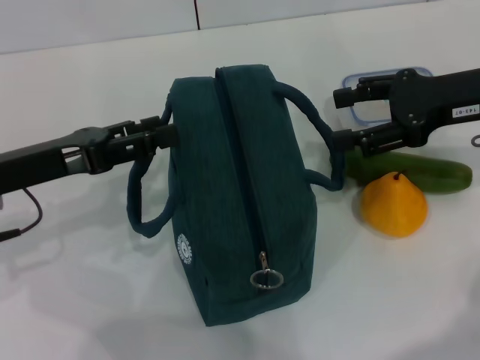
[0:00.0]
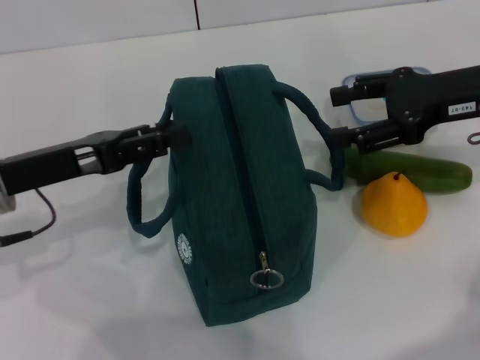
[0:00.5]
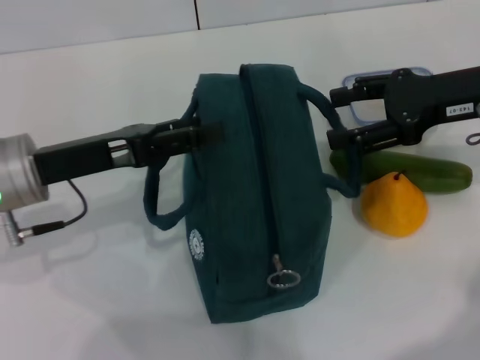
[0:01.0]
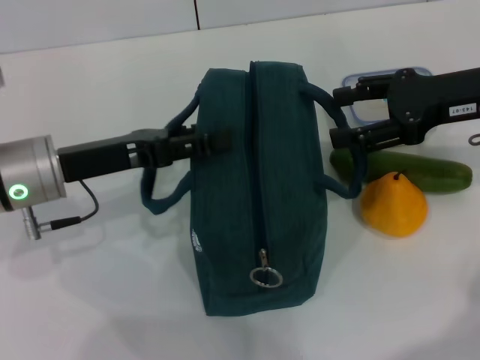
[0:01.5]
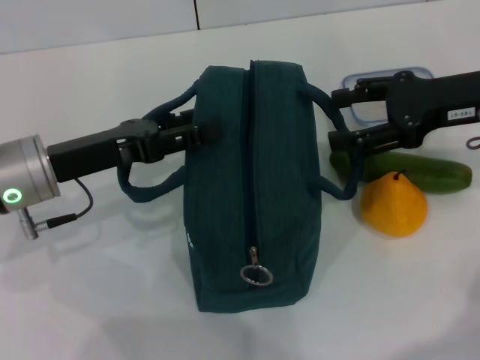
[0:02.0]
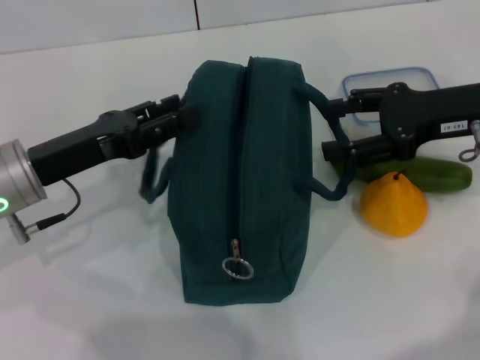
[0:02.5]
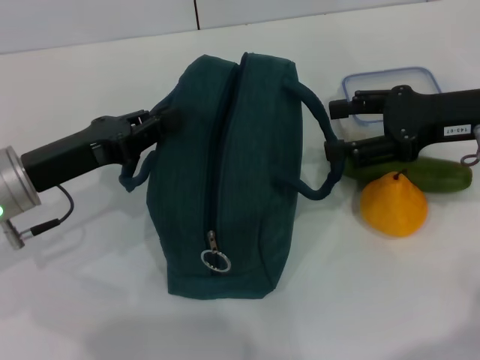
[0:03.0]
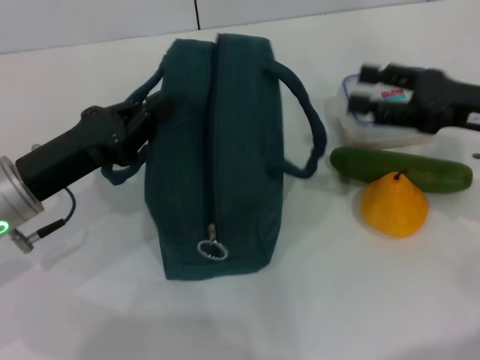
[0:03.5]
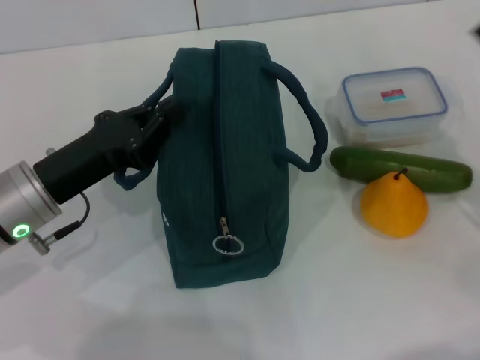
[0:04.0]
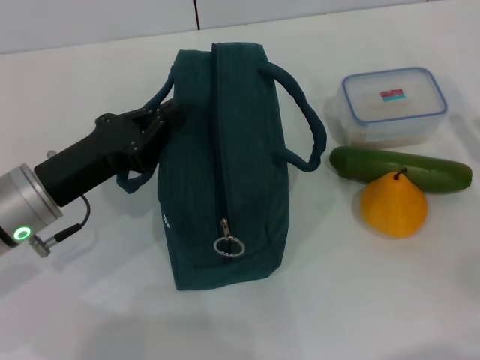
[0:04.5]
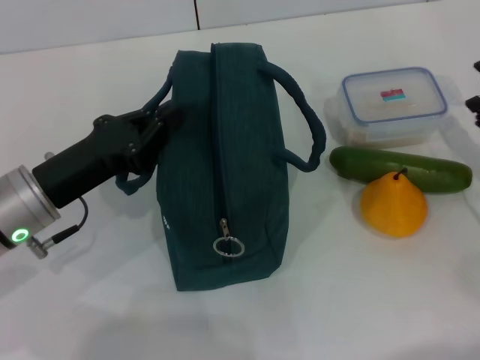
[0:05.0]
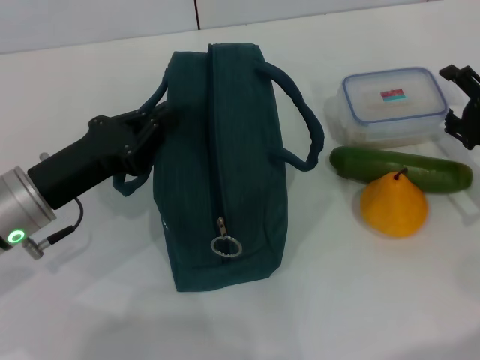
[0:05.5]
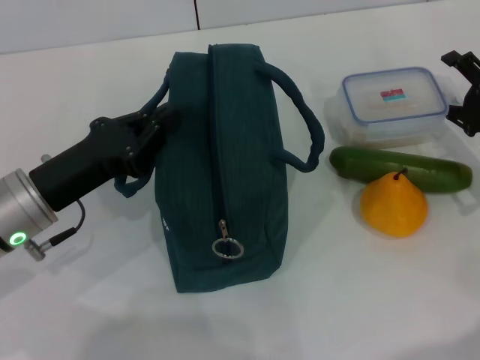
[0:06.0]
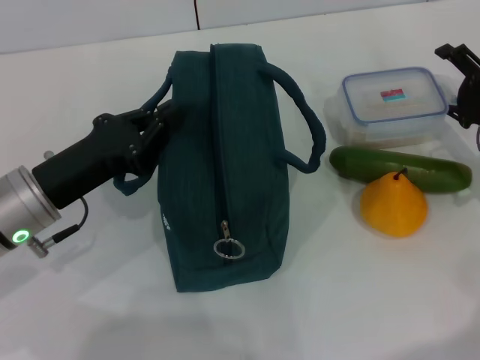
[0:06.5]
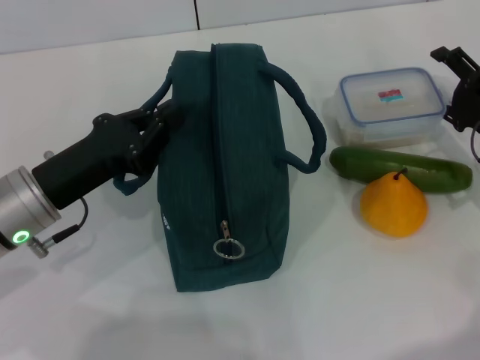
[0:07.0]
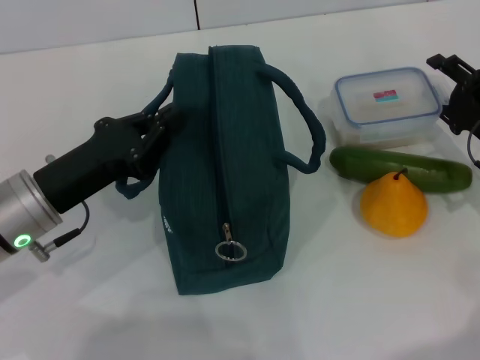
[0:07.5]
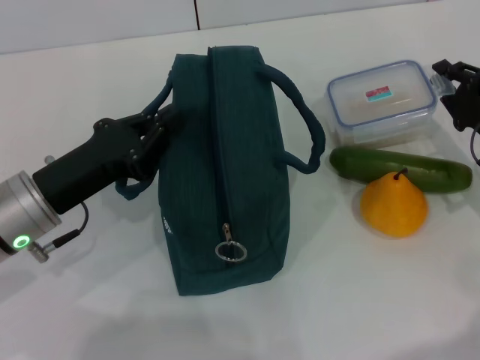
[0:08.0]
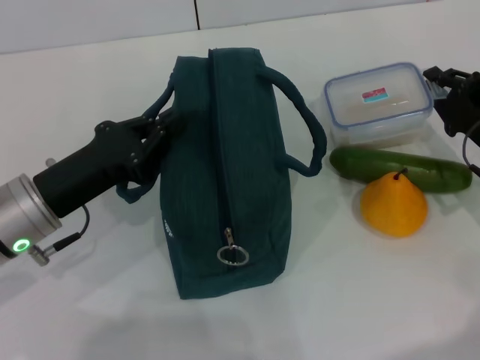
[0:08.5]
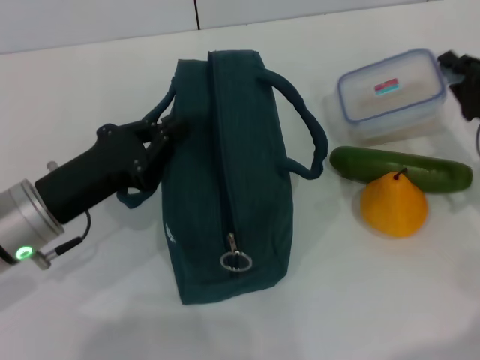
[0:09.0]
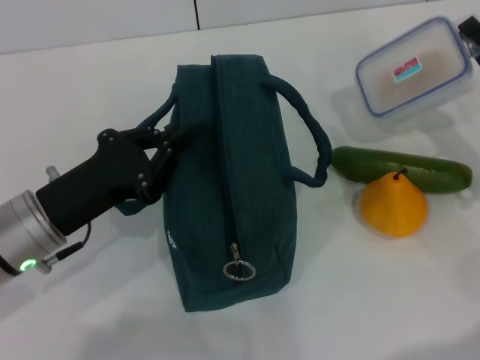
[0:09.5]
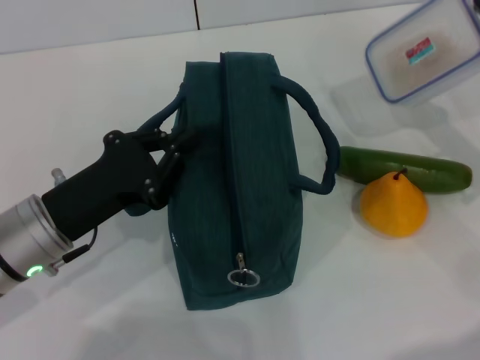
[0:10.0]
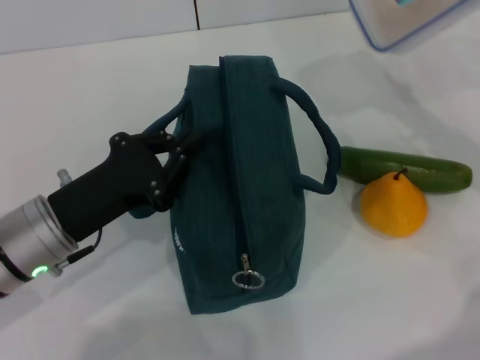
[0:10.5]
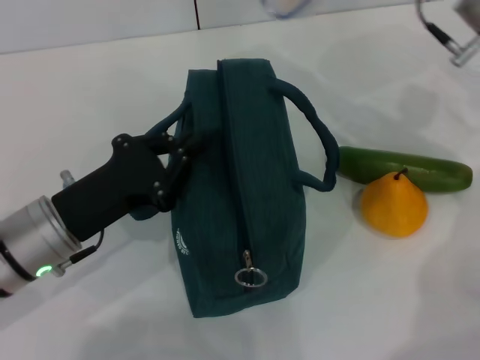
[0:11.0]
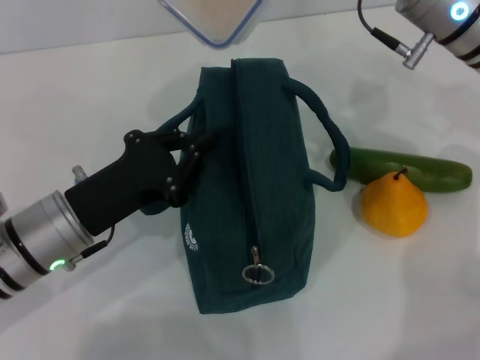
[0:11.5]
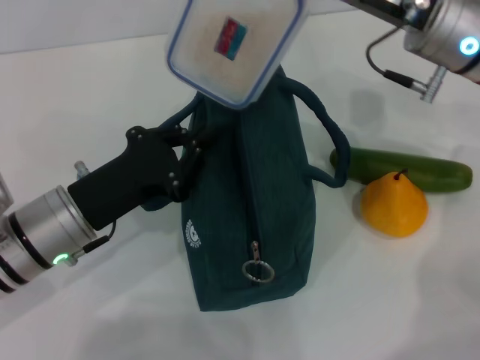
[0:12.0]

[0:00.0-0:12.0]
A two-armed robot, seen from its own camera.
Step, 0:00.0 to 0:06.0: Hold the lunch bag with your left hand.
Step, 0:06.5 to 0:08.5: Pick up the lunch box with your right hand.
0:00.0 to 0:02.0: The grippers move only a little.
0:02.0 to 0:04.0: The left gripper closes its fingers; the right gripper heads downward, backward and to the right, covering approximately 15 cm.
0:04.0 to 0:06.0: The right gripper heads forward, covering about 5 cm.
0:06.0 to 0:08.0: The right gripper closes up.
0:08.0 to 0:10.0: The right gripper shifts approximately 5 cm upward.
0:10.0 to 0:12.0: The right gripper goes about 20 cm to the left, upward and forward.

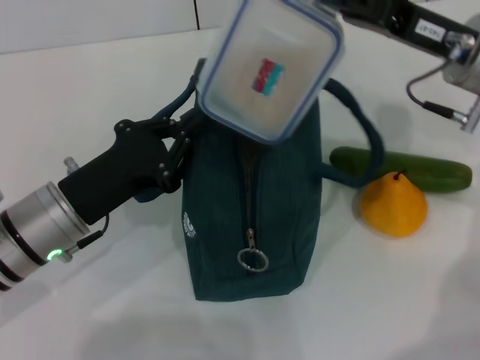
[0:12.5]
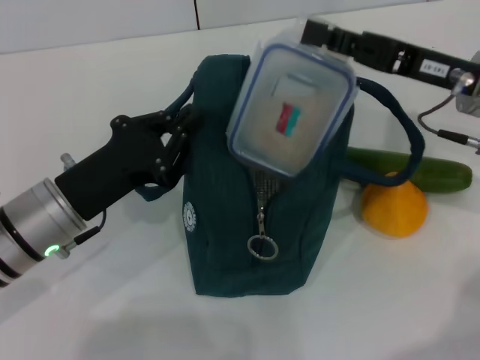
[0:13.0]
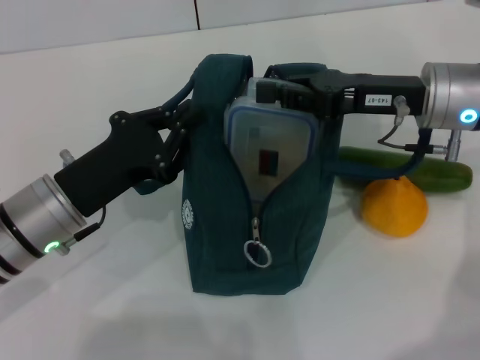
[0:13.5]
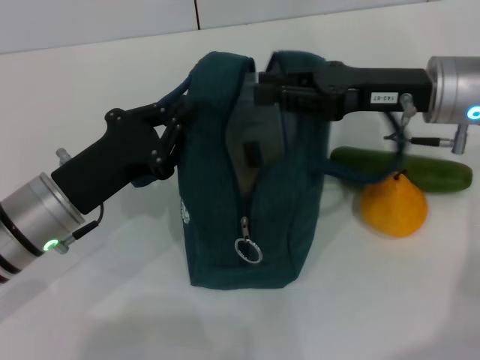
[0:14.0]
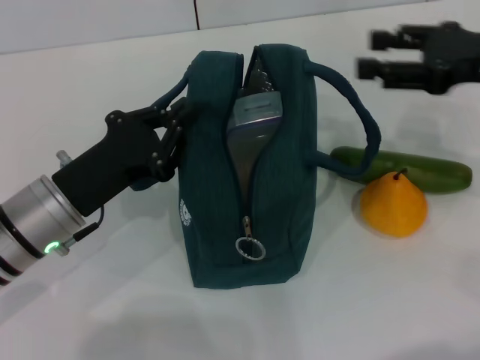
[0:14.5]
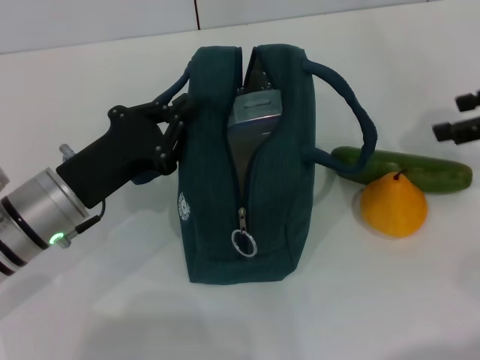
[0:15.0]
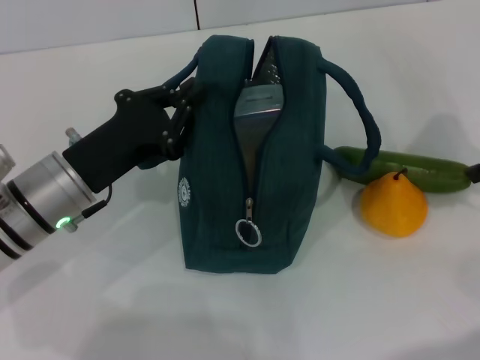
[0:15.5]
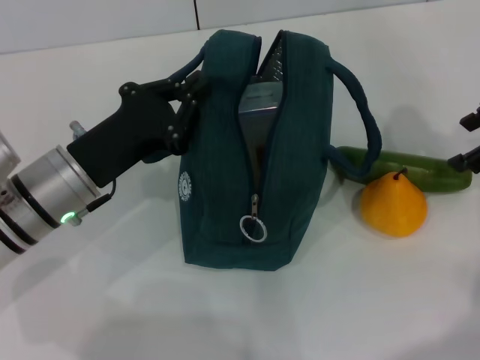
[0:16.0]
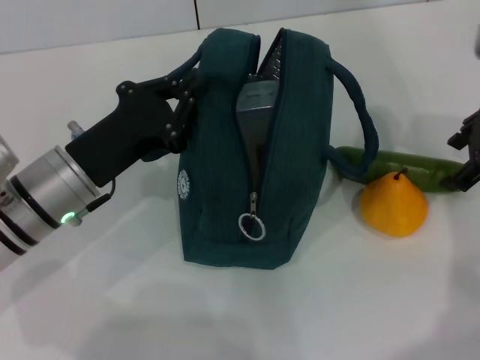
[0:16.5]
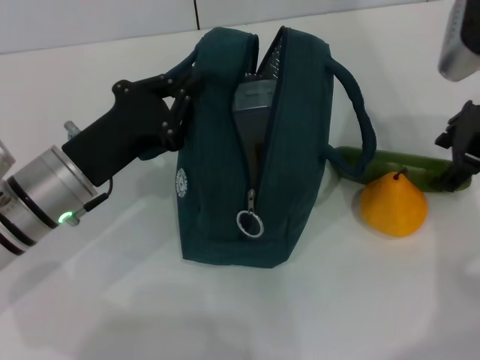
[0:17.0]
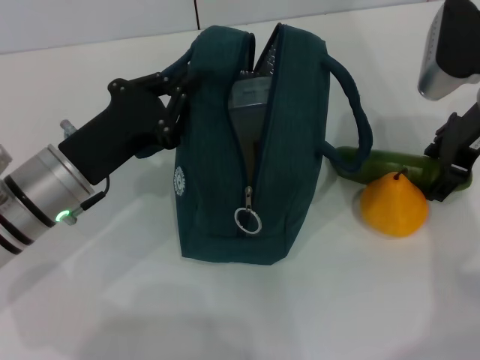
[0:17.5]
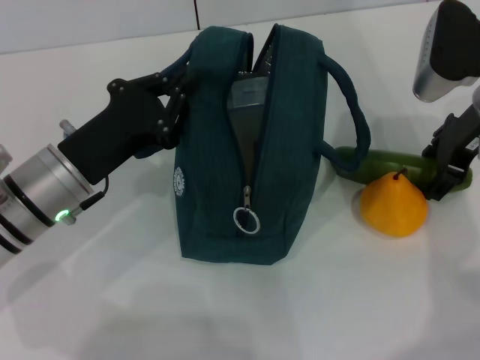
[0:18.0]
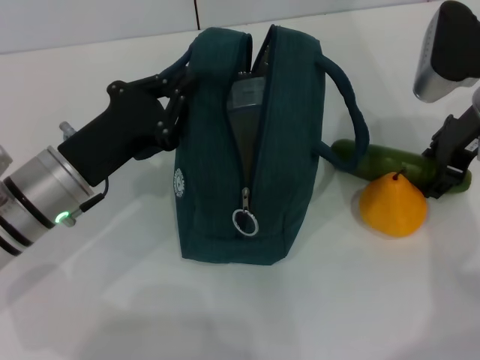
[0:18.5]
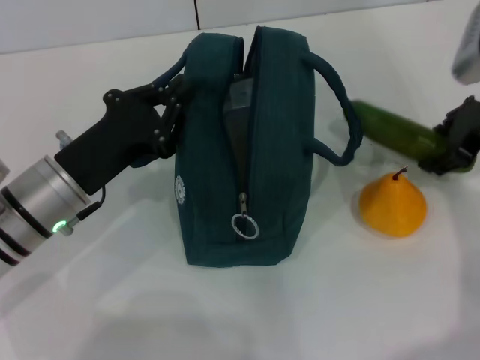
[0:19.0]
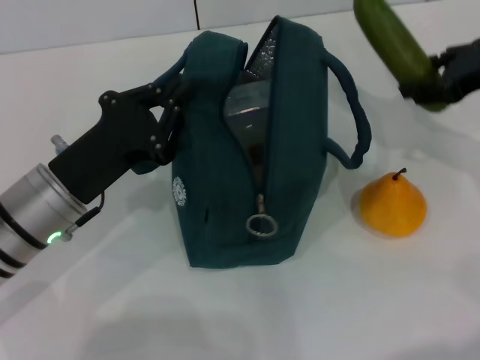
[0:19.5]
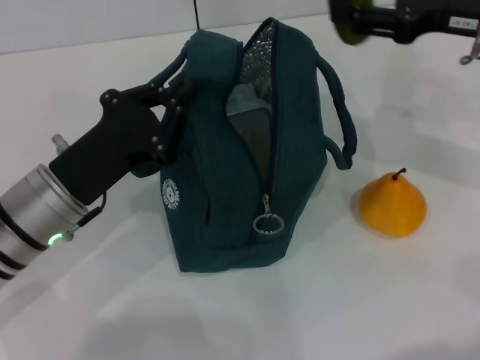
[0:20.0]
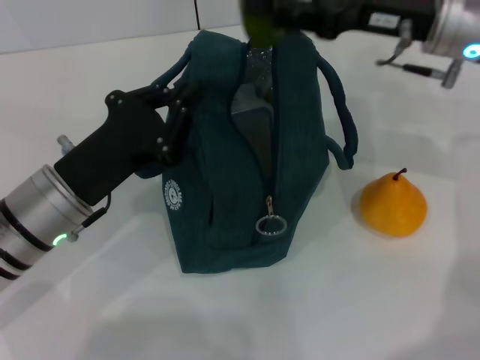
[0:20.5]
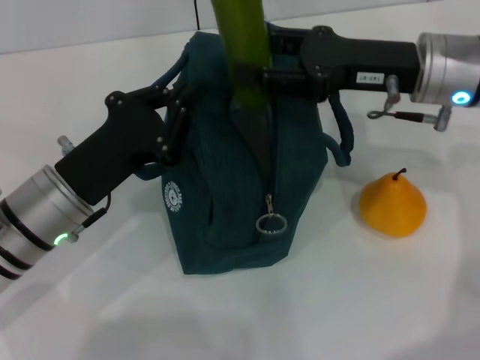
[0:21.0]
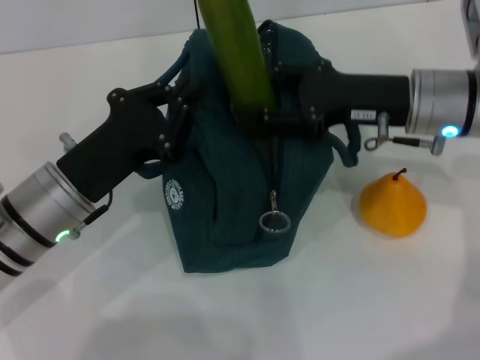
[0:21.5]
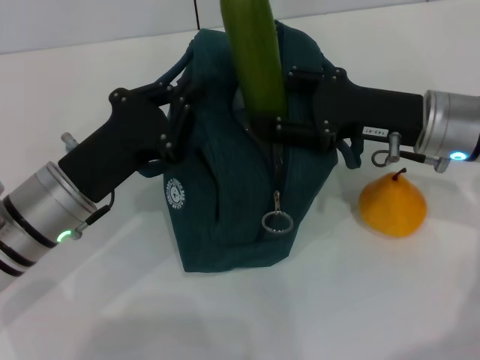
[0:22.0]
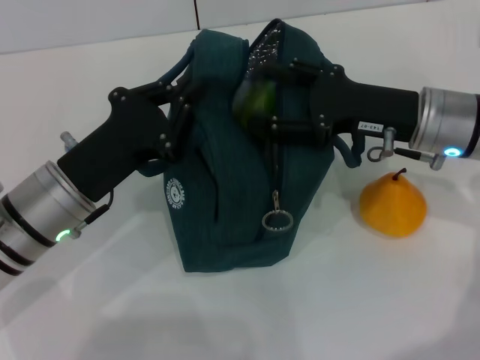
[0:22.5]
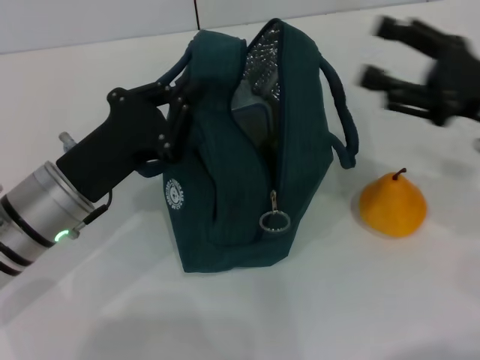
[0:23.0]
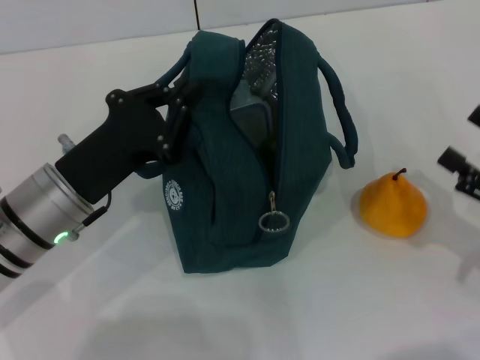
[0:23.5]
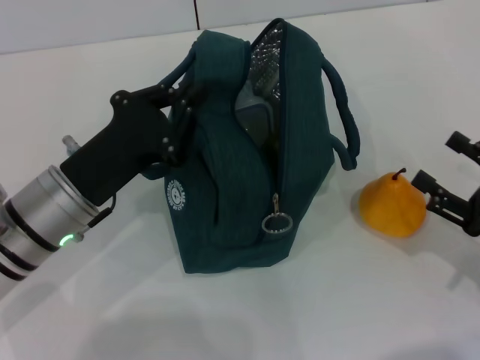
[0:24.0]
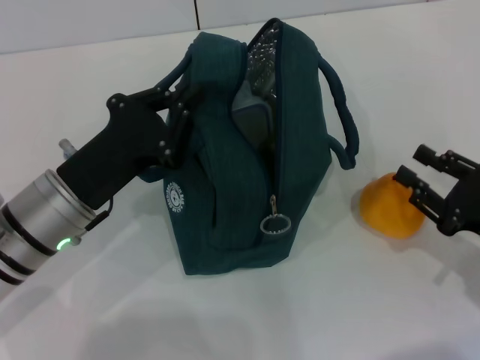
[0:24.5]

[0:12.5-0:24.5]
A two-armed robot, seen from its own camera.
Step, 0:14.5 to 0:18.5: Pick up the cucumber with your right hand.
Step, 0:19.0 to 0:22.5: Put the cucumber into the lunch bag with your right hand.
0:12.5 to 0:14.5: The right gripper shifts some 5 cm to the right, and opens.
0:16.5 to 0:18.5: The right gripper moves approximately 5 cm.
0:18.5 to 0:20.5: The right gripper shifts by some 5 cm.
0:20.5 to 0:22.5: The right gripper travels downward by roughly 10 cm.
0:22.5 to 0:24.5: The right gripper shifts some 20 cm backward, to the right and downward.

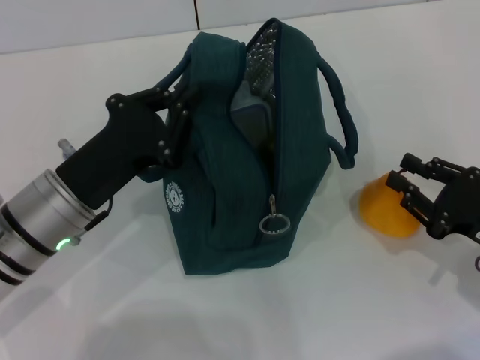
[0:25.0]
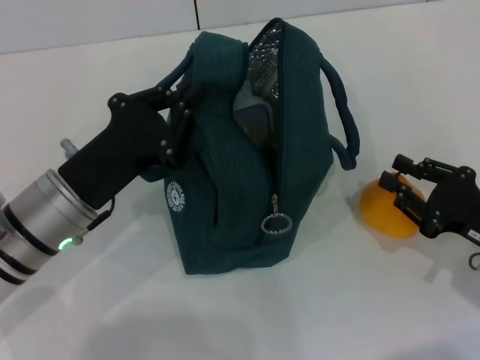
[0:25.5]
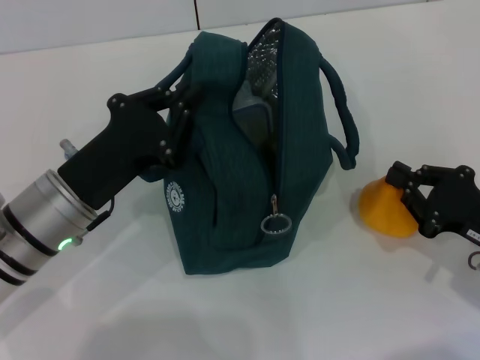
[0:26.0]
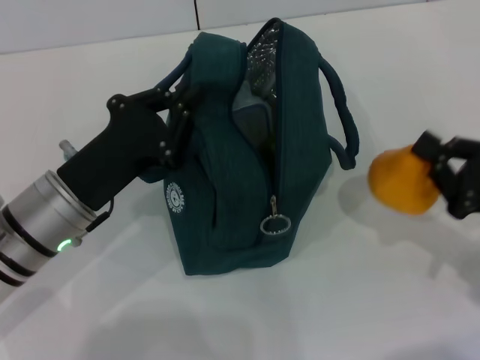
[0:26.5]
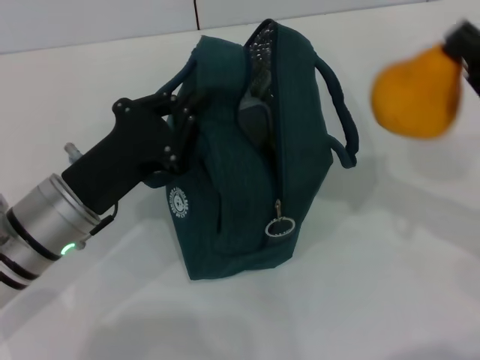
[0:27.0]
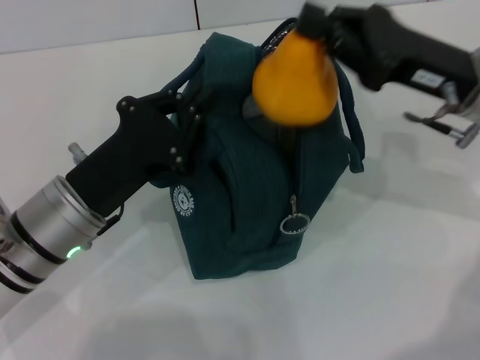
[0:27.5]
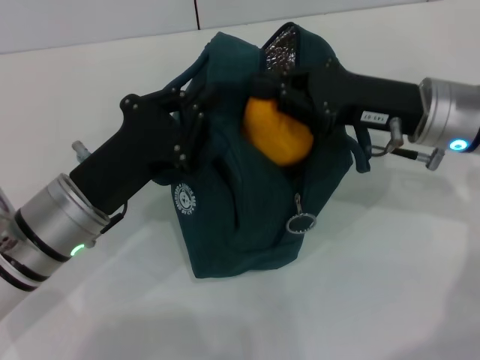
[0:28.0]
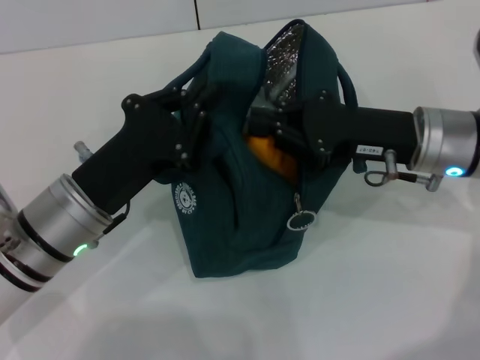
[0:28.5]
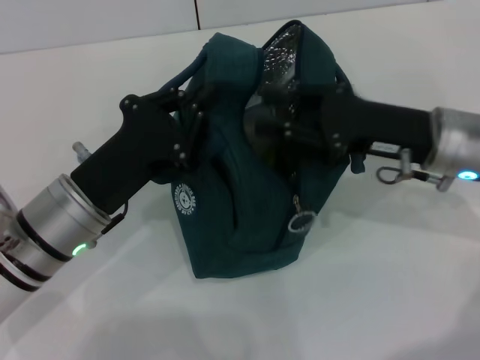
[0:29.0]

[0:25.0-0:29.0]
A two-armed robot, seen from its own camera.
0:25.0 to 0:27.0: The right gripper moves upward, some 10 cm, and closes its fingers.
0:27.0 to 0:29.0: The right gripper heads to the left and forward, covering about 10 cm.
